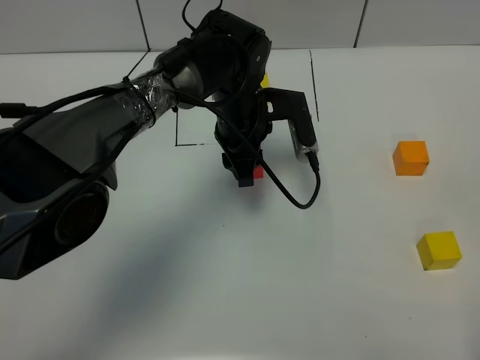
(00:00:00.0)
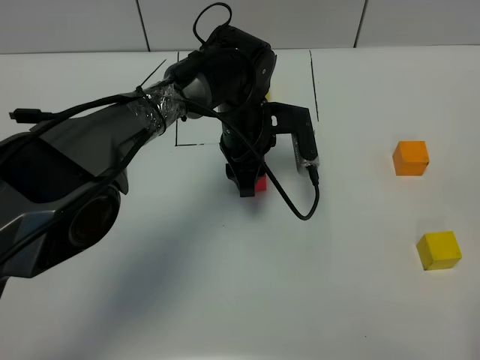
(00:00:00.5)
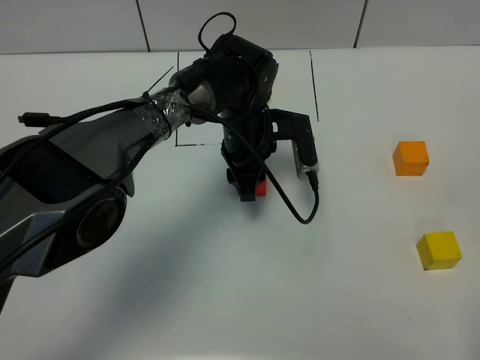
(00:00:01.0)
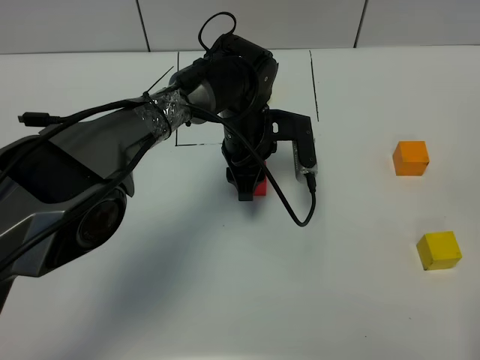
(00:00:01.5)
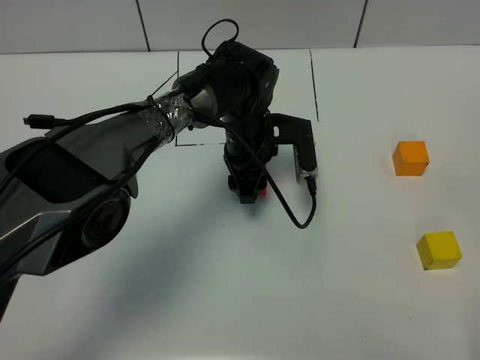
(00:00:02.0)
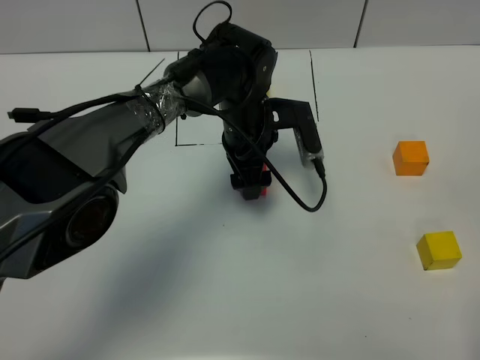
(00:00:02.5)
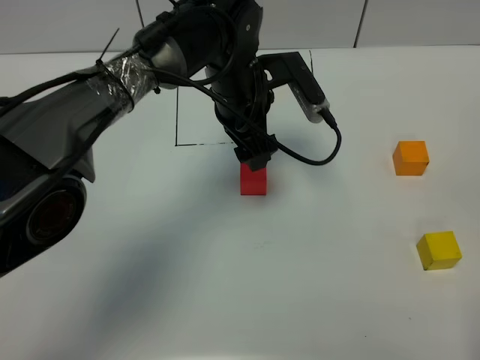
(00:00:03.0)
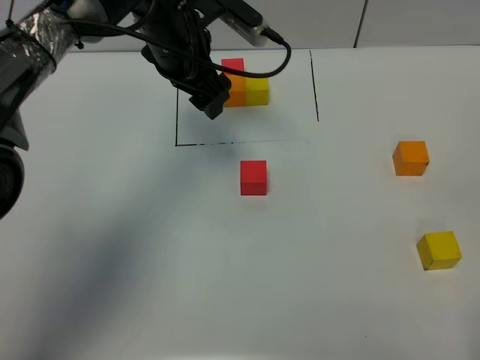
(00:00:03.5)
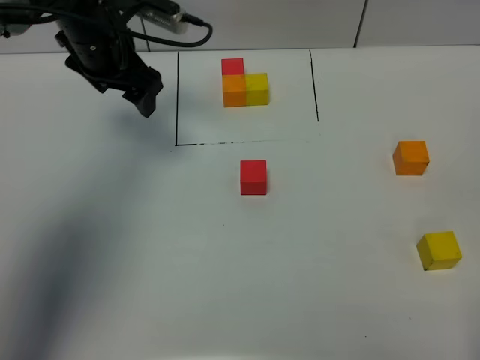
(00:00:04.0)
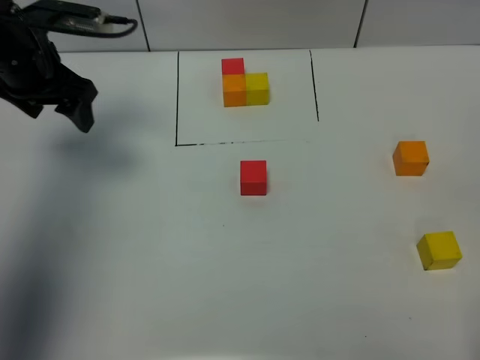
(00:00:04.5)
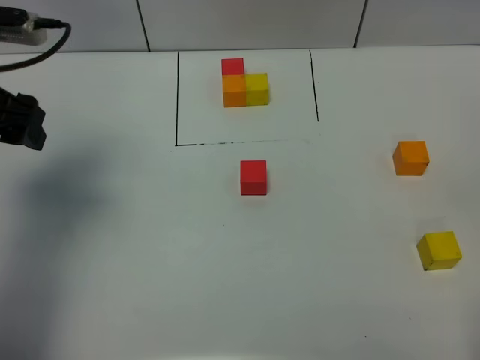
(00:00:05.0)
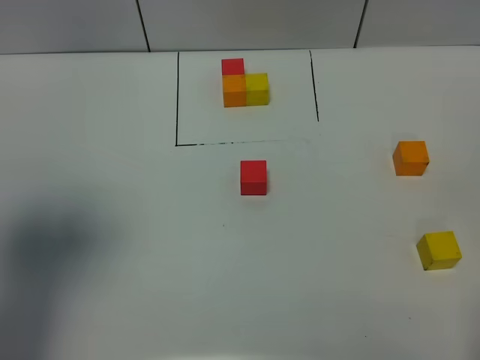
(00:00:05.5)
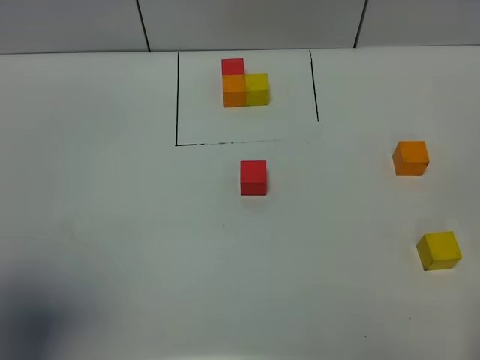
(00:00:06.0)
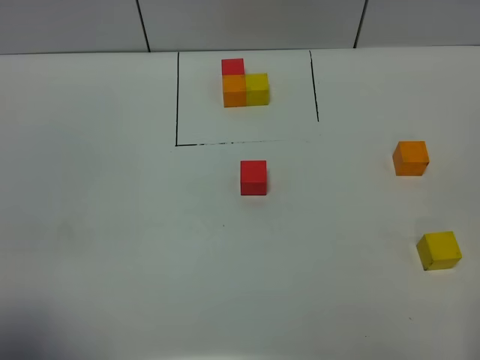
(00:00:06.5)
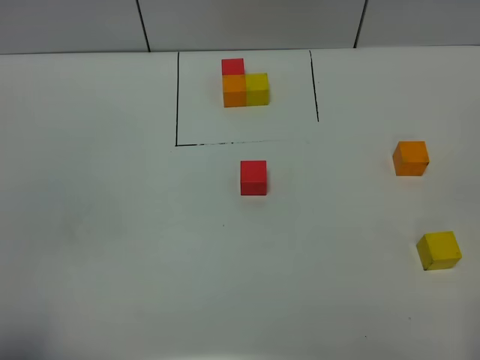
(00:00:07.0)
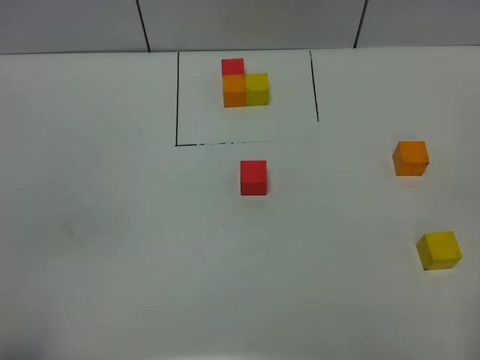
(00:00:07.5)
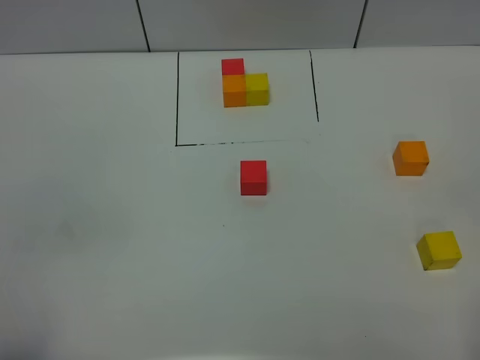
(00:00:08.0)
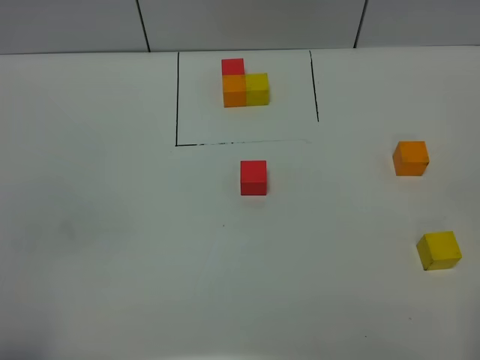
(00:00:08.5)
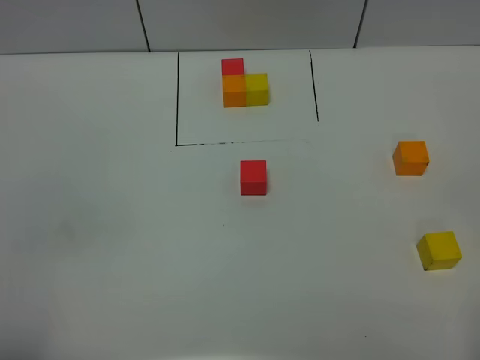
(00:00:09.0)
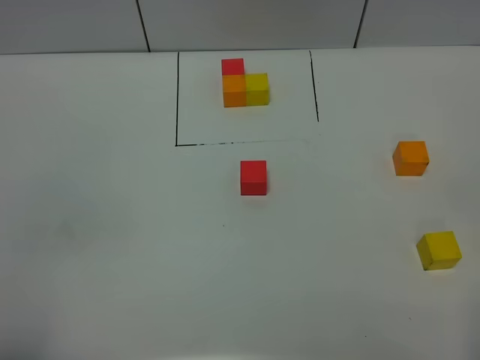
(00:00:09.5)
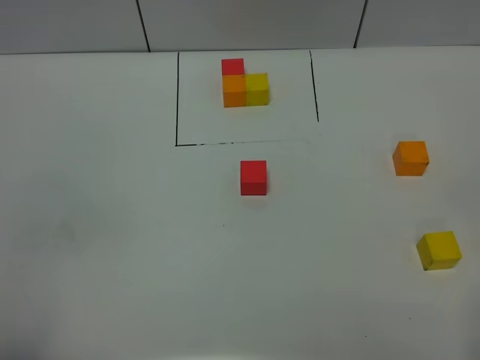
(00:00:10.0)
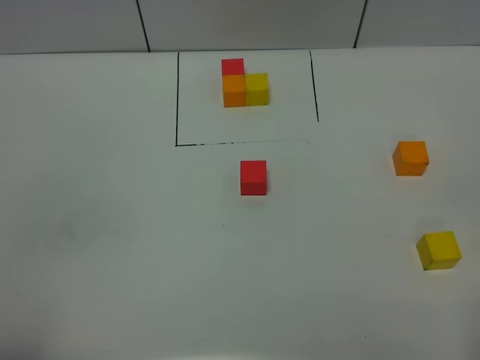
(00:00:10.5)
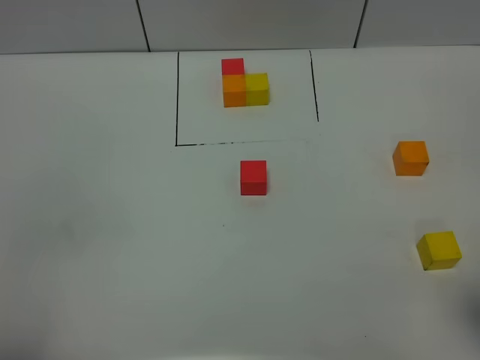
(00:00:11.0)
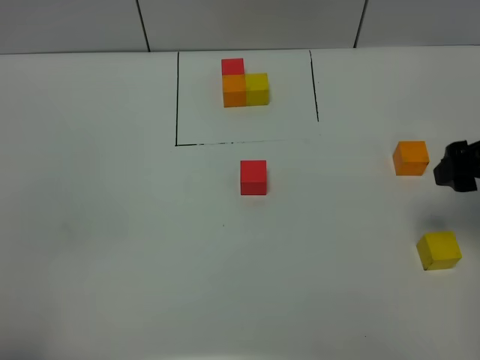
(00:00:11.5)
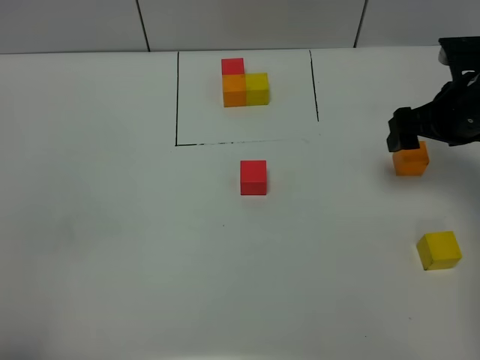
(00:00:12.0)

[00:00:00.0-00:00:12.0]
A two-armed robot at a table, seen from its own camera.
Task of the whole recording: According to the building block template in front, assemble the scattered blocks together.
00:00:00.0 to 00:00:02.0: The left gripper opens its fingers.
00:00:02.0 to 00:00:04.0: The left gripper heads to the left and upward, covering roughly 25 cm, and opens its fingers.
00:00:04.0 to 00:00:06.0: The left gripper is displaced backward by some 35 cm.
00:00:06.0 to 00:00:08.0: The left gripper shifts about 15 cm backward and downward.
00:00:08.0 to 00:00:10.0: Both grippers stay about where they are.
00:00:10.0 to 00:00:12.0: The right gripper travels forward by roughly 35 cm.

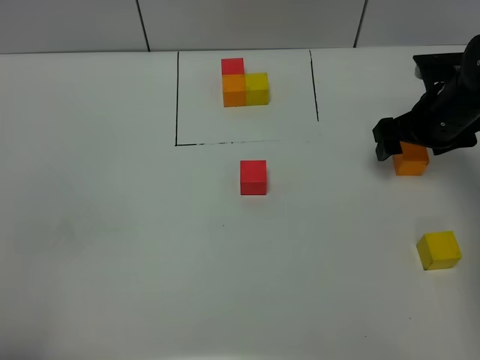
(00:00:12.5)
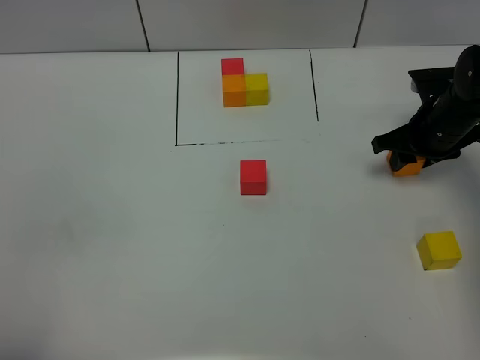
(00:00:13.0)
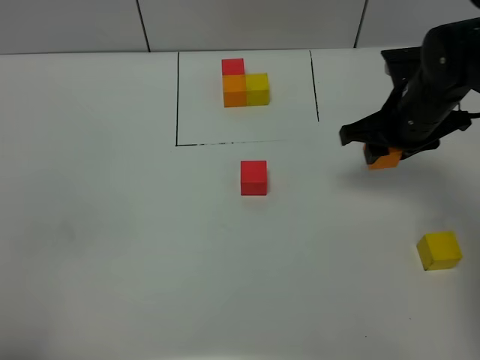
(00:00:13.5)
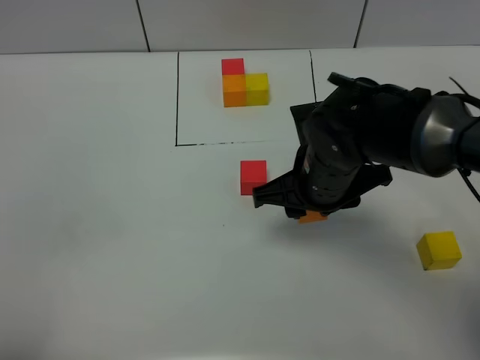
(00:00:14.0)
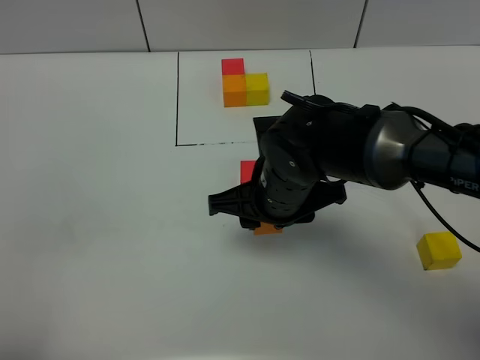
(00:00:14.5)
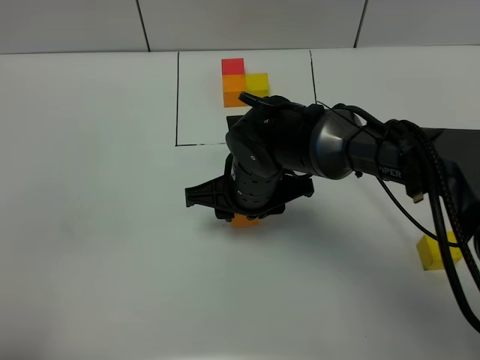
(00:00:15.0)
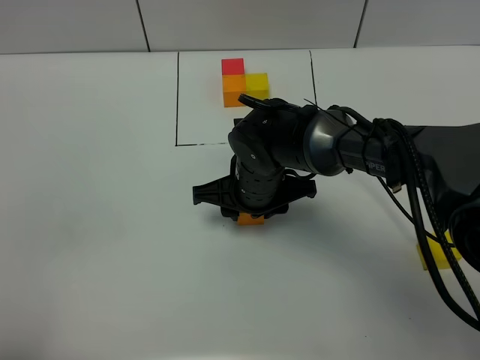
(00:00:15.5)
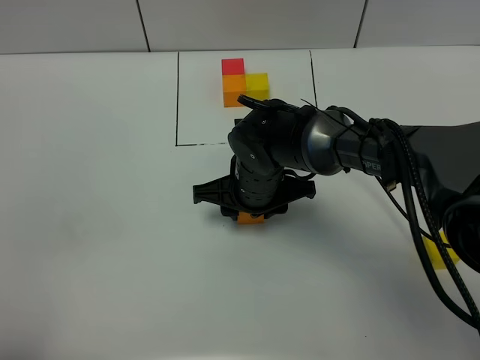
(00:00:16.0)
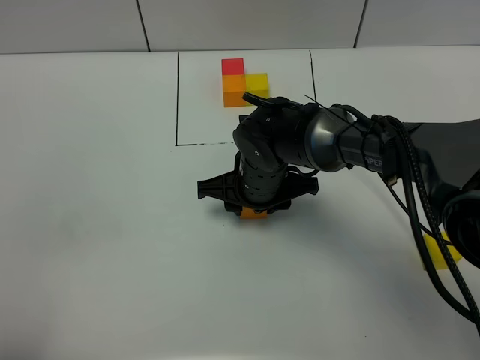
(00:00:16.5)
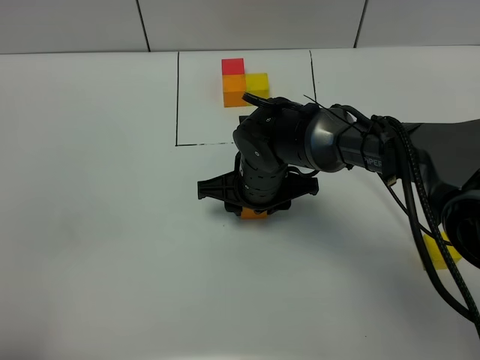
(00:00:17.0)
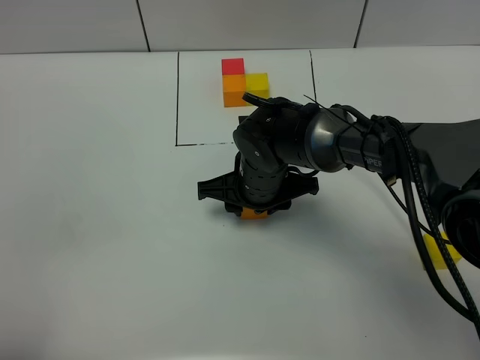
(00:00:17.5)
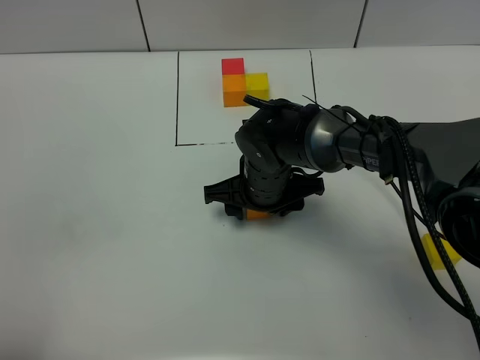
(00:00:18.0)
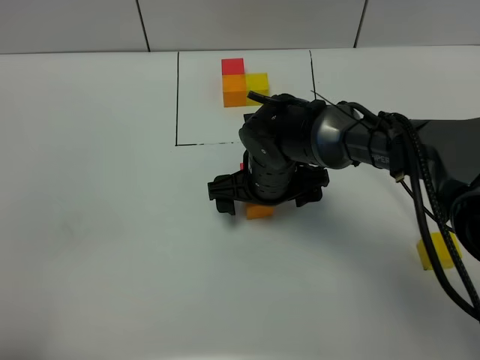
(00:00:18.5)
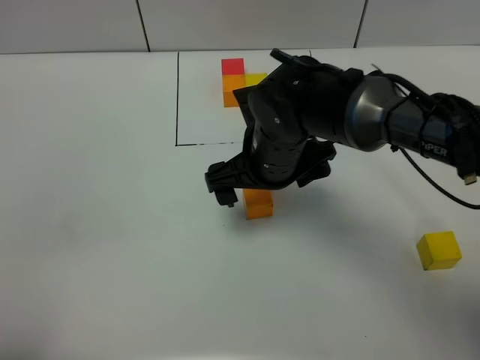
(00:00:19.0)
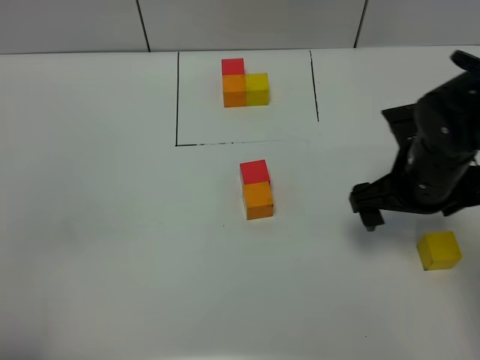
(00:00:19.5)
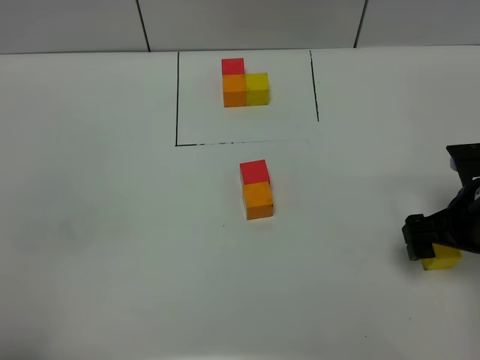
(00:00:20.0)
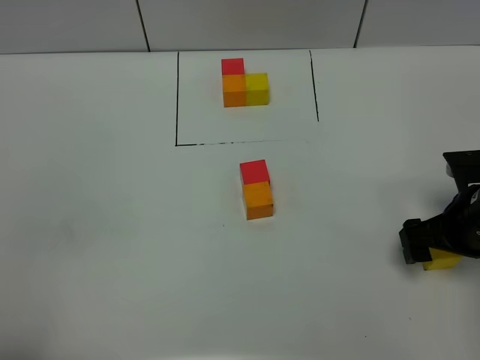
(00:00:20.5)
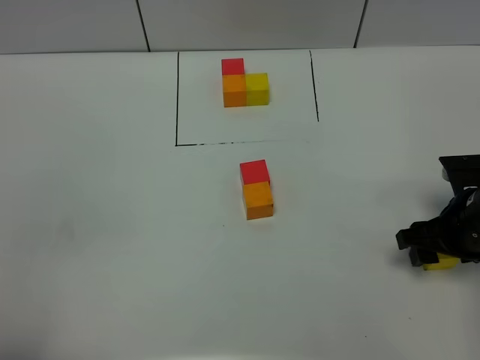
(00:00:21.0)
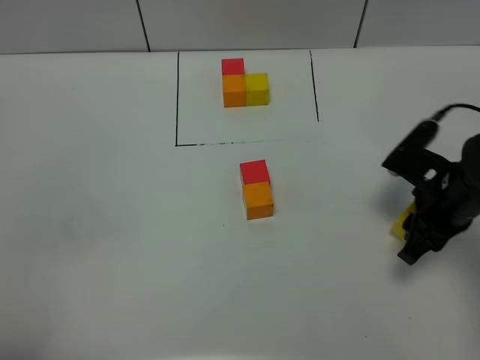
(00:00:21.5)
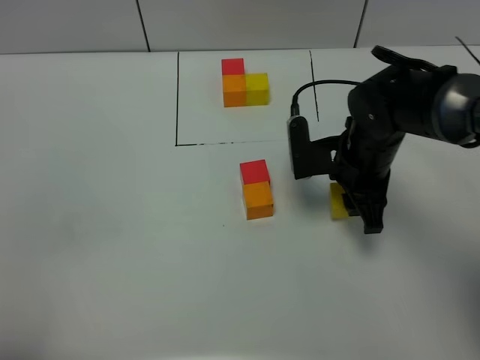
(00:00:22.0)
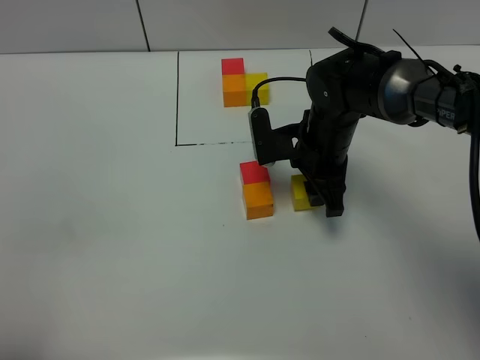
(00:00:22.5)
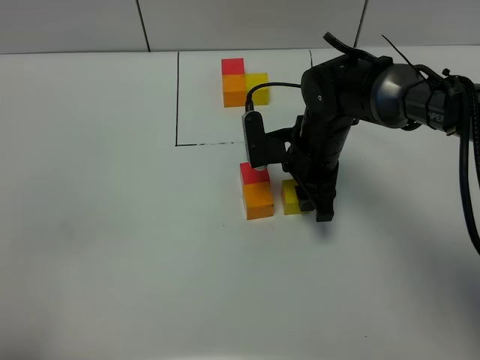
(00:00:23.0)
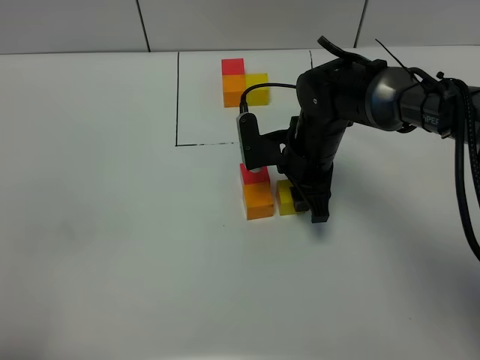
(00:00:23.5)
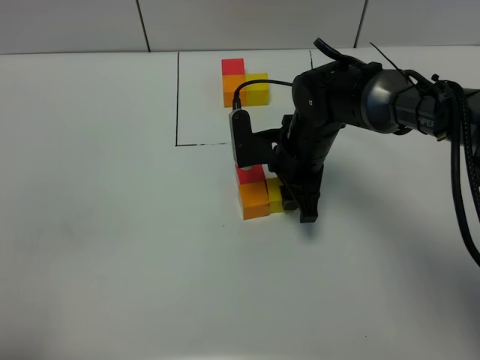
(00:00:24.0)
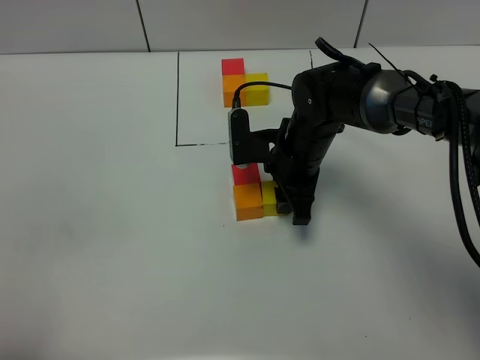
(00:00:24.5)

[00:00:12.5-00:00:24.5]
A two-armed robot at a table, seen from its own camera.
Task of the whole recording: According to the building block template in front, assemble the scattered blocks together.
Step, 00:00:12.5 to 00:00:18.0: Put the orange build block on the behind of the red build block.
00:00:12.5 to 00:00:14.5: The right gripper goes about 25 cm to the left and backward, and closes.
00:00:14.5 to 00:00:16.5: The right gripper heads downward and forward, covering approximately 10 cm.
00:00:16.5 to 00:00:18.5: The right gripper opens up.
00:00:18.5 to 00:00:20.5: The right gripper heads to the right, covering approximately 25 cm.
00:00:20.5 to 00:00:22.5: The right gripper is displaced to the left and forward by roughly 20 cm, and closes up.
00:00:22.5 to 00:00:24.5: There are only small adjustments of the grippers.

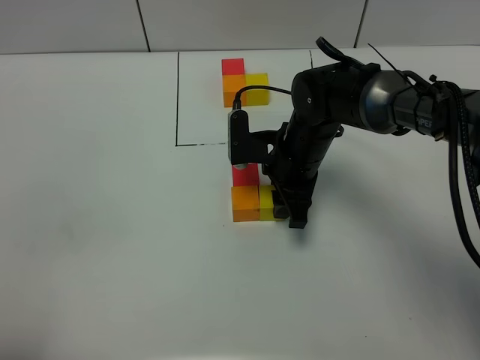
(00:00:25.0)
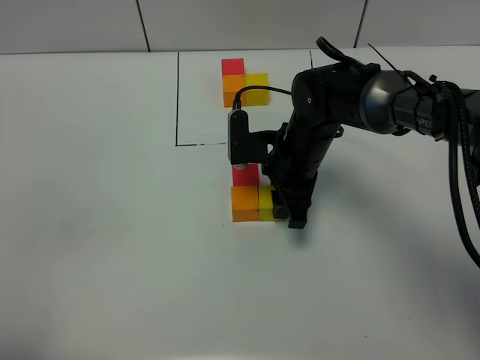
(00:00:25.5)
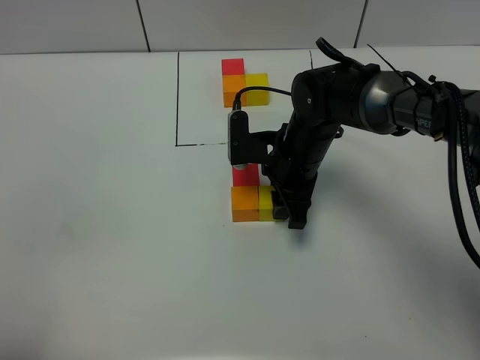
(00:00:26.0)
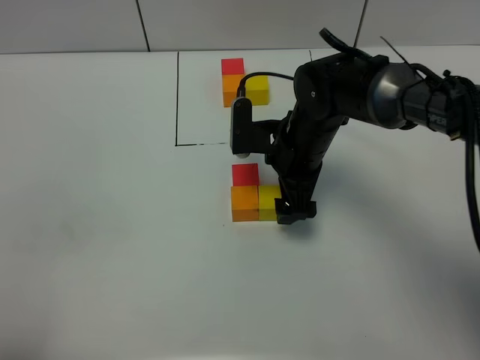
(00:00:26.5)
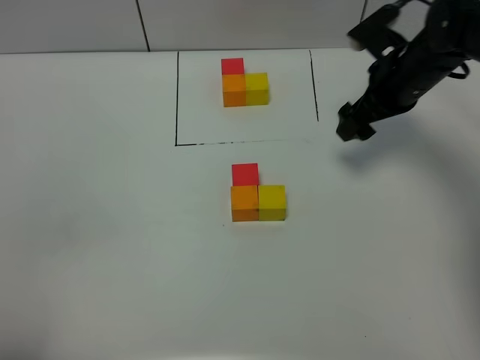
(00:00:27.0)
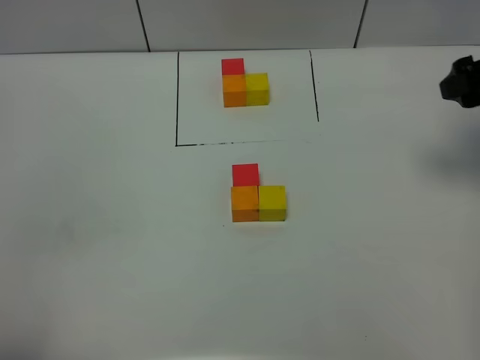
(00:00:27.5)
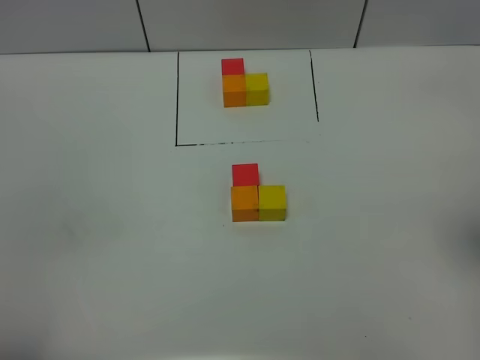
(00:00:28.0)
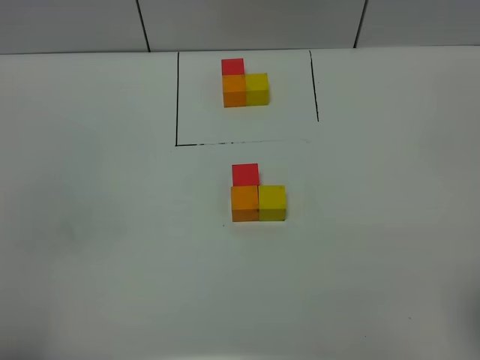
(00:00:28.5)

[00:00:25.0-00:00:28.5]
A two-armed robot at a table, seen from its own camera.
Task of the whole recording: According to the building block template in front, assemble the scattered blocks together.
00:00:25.0 to 00:00:27.0: The right gripper shifts about 20 cm to the right, upward and forward, and opens.
00:00:27.0 to 00:00:28.5: The right gripper travels backward by approximately 35 cm.
